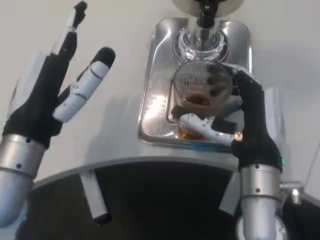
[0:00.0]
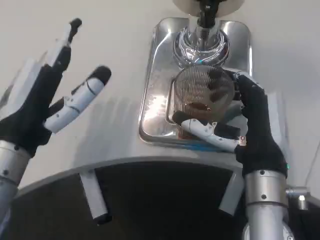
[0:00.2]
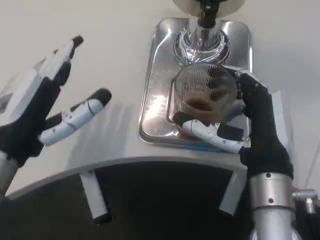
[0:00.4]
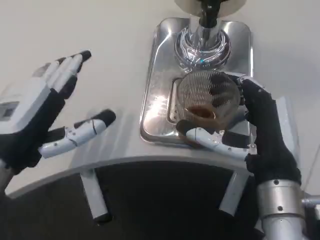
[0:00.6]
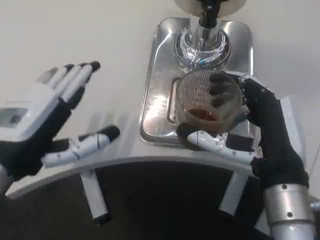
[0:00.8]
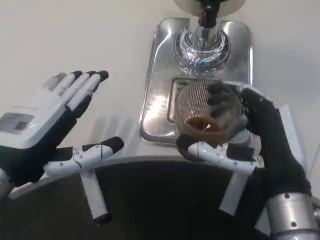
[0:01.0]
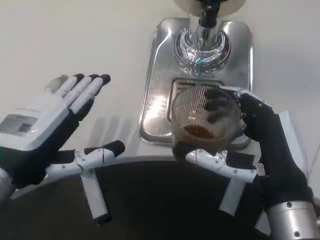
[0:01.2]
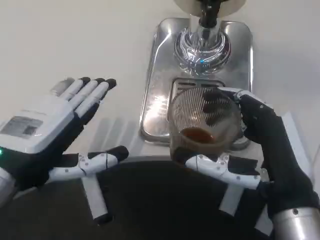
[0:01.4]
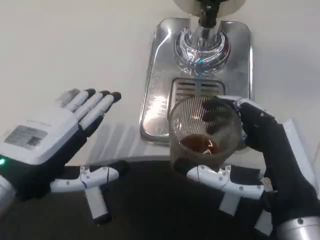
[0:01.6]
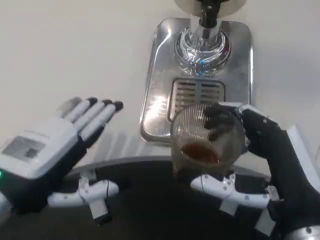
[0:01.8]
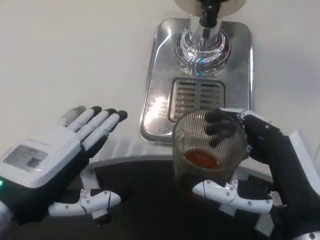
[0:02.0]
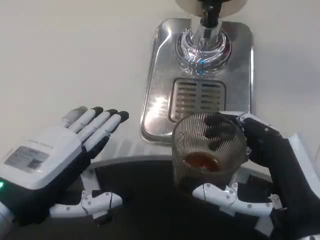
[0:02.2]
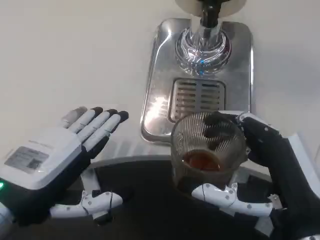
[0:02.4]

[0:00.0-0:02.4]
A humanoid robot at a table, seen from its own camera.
Task of the whole recording: Grasp the cup under the faucet to collect the drink, then remove the cup.
0.0 to 1.2 s: The right hand heads backward, covering roughly 5 cm.

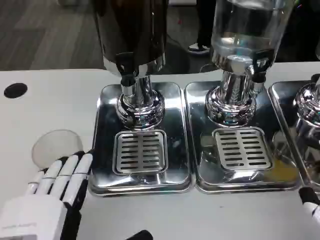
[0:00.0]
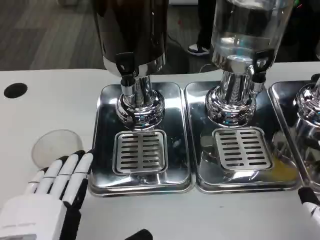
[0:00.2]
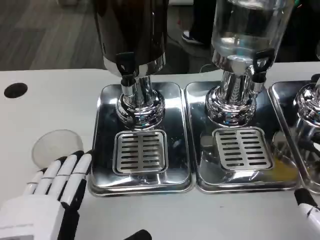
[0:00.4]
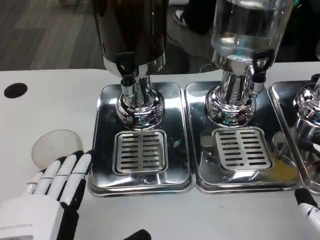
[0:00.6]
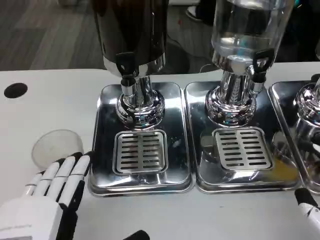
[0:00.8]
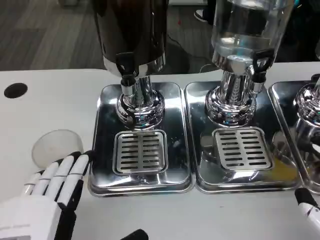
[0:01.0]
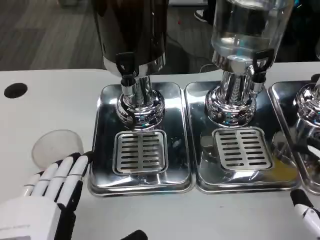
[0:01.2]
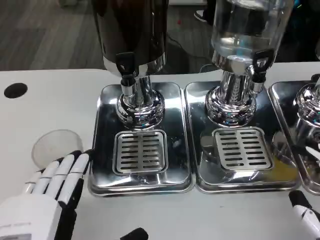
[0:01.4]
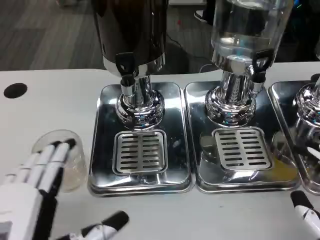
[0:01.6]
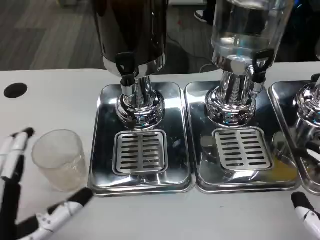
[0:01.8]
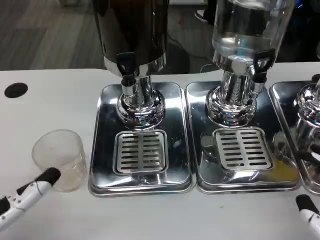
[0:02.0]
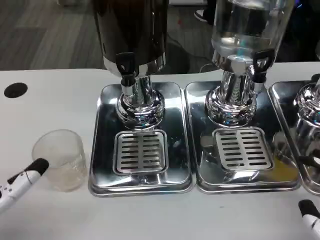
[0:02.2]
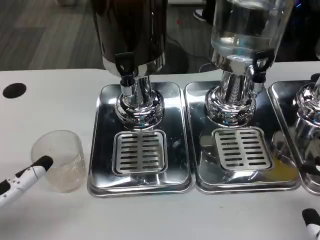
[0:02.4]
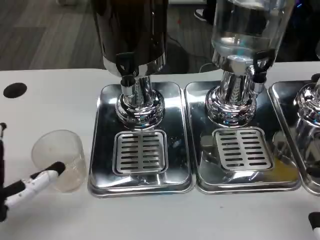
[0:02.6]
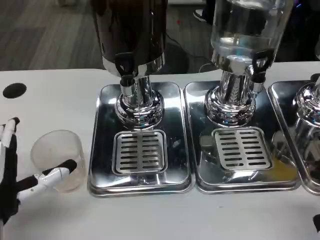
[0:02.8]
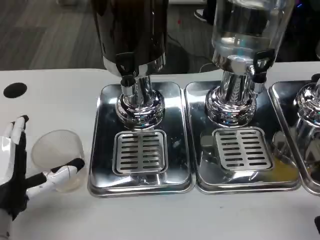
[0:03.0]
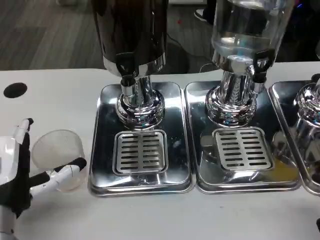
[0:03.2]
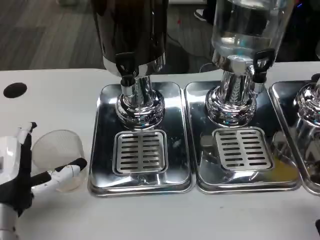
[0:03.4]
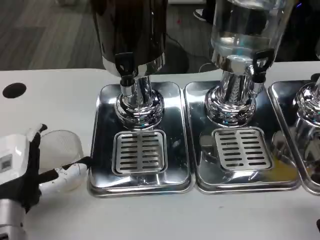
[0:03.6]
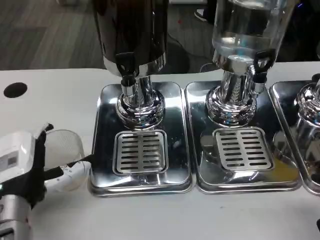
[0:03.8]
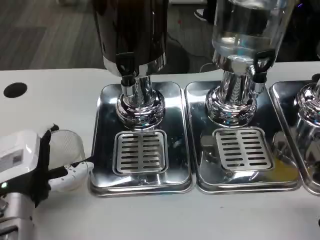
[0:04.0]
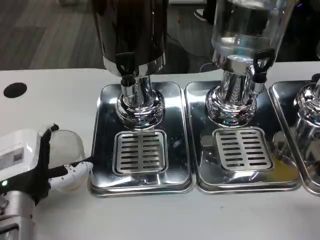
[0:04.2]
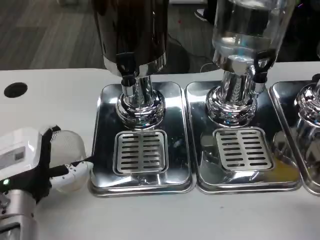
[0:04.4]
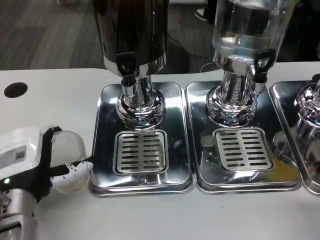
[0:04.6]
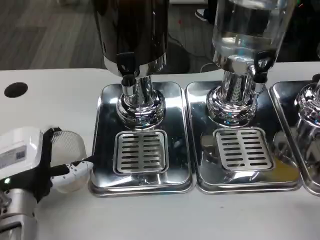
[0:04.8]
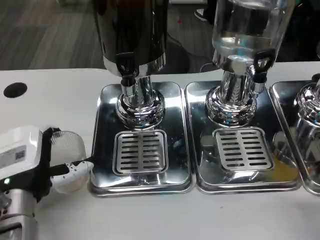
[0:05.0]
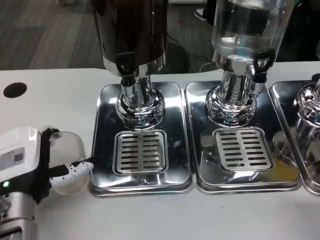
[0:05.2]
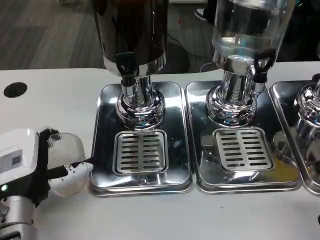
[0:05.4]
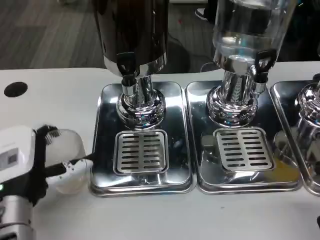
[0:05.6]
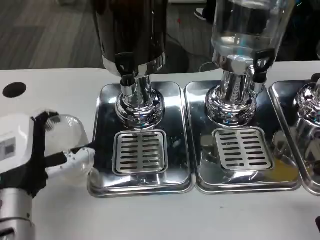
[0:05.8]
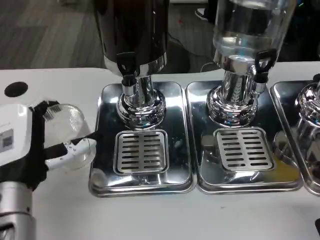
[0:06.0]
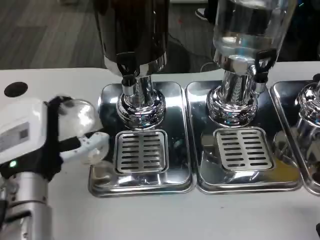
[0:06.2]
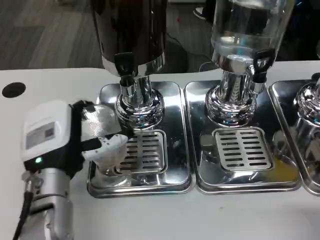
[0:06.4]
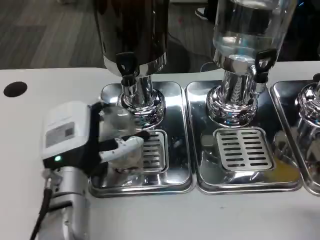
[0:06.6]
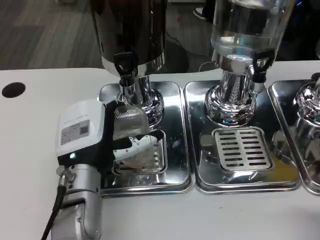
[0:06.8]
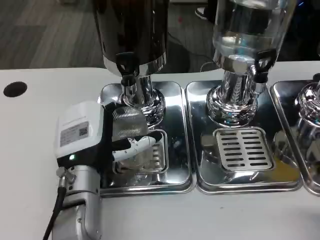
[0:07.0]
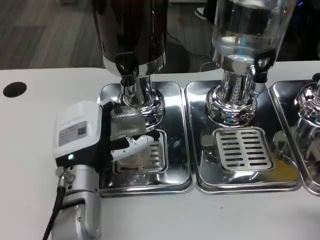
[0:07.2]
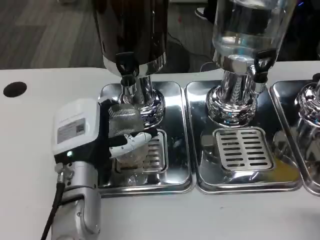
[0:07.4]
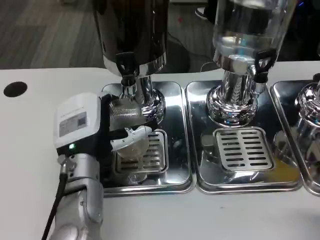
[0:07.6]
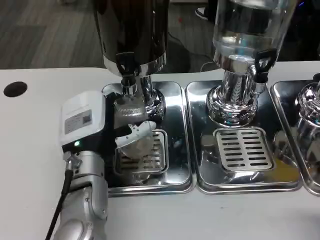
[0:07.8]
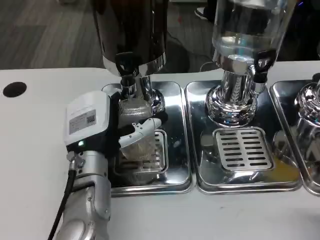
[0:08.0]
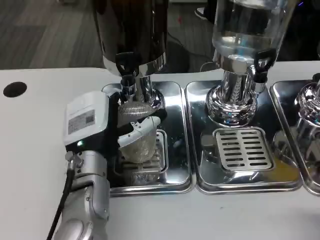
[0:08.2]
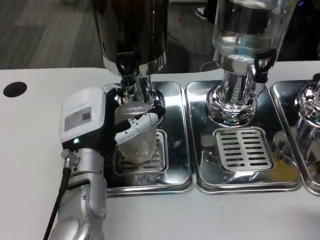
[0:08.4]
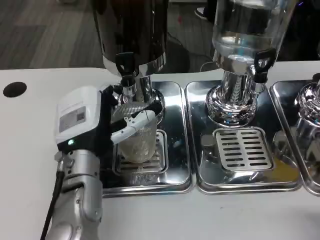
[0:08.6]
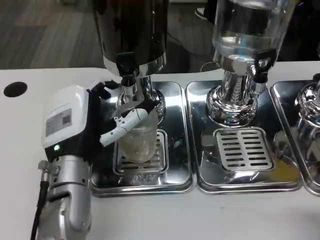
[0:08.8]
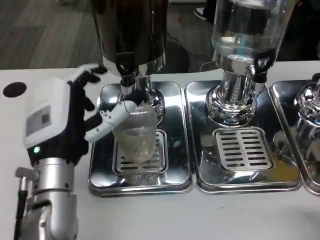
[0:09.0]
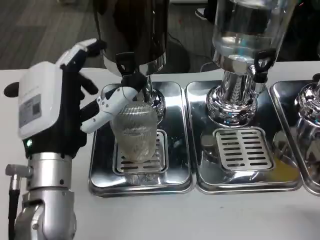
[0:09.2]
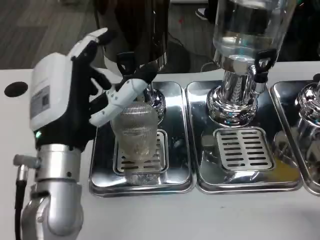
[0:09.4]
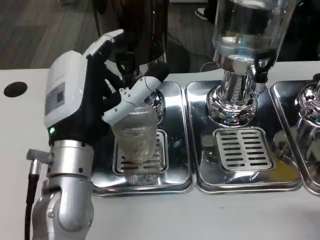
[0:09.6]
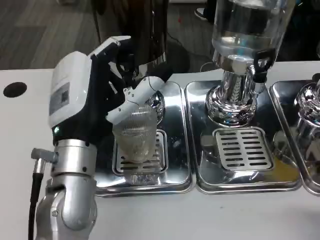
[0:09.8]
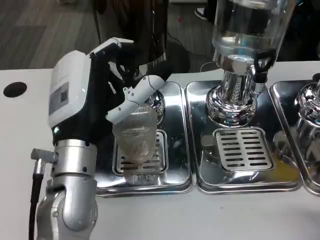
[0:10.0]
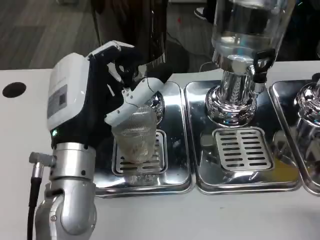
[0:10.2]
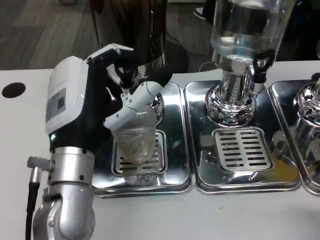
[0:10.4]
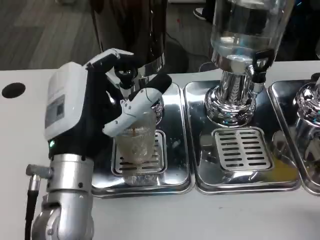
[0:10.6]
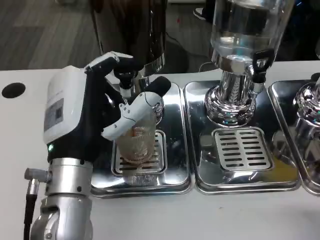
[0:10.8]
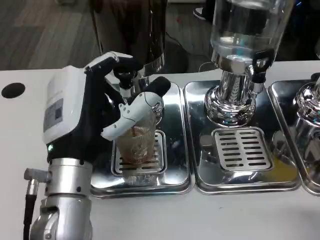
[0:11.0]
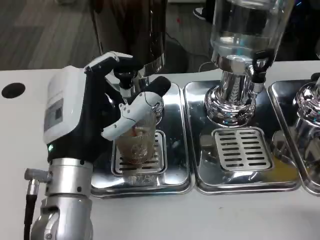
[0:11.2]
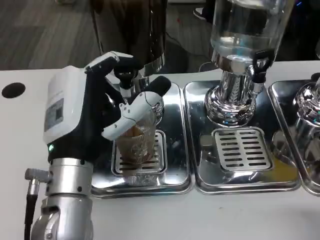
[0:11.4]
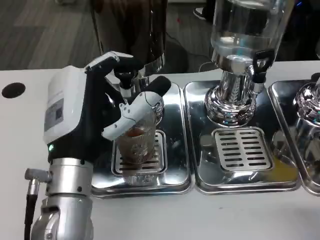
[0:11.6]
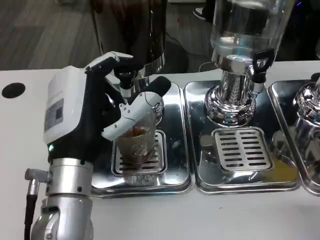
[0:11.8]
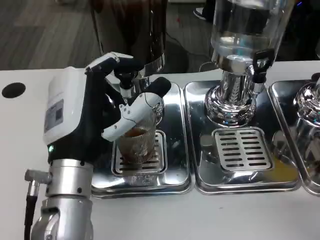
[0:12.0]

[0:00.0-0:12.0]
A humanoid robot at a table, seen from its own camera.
Task of the whole recording: Grasp the cup under the faucet to collect the drink, then remove the cup.
0.0 to 1.6 s: There are only small adjustments of the hands.
1.6 to 3.0 s: The left hand moves forward, about 10 cm.
3.0 to 6.0 s: The hands move only a little.
6.0 to 7.6 s: The left hand moves to the right and forward, approximately 10 cm.
7.6 to 9.0 s: The left hand shifts by about 5 cm.
10.4 to 12.0 s: The hands stay close to where they were, moving slightly.

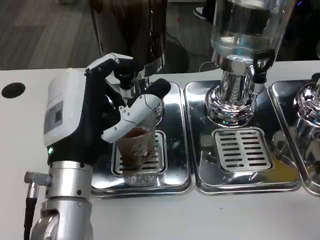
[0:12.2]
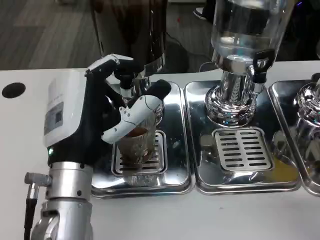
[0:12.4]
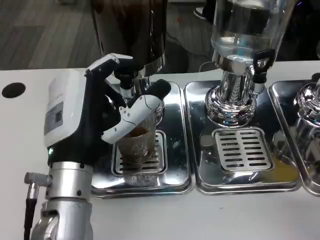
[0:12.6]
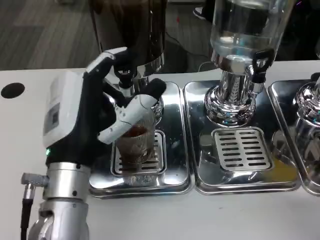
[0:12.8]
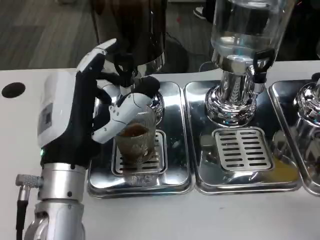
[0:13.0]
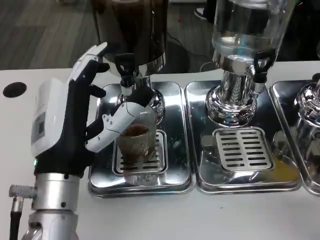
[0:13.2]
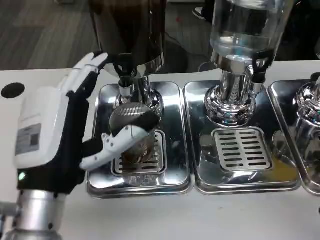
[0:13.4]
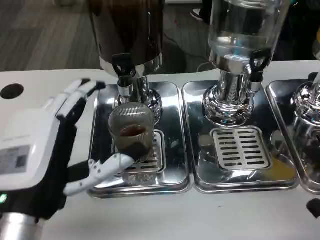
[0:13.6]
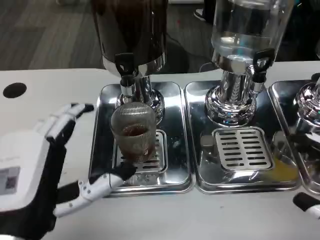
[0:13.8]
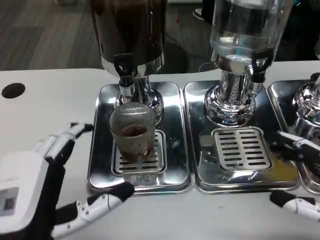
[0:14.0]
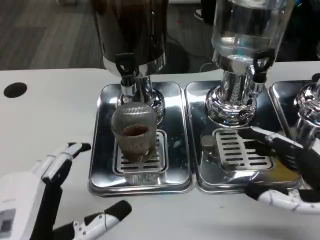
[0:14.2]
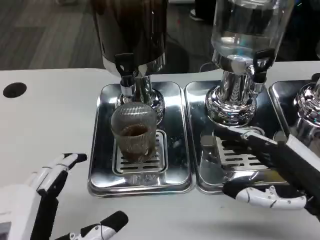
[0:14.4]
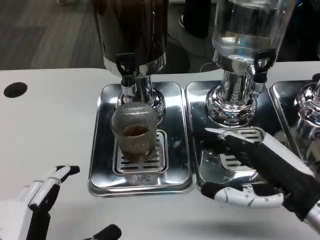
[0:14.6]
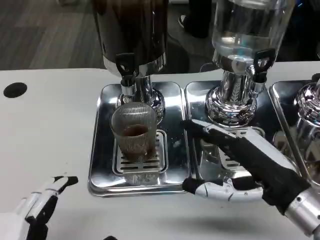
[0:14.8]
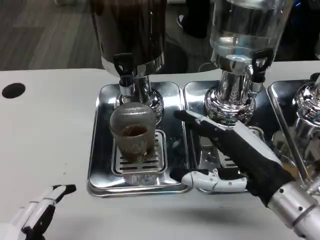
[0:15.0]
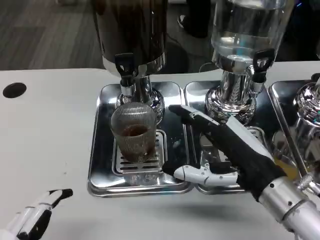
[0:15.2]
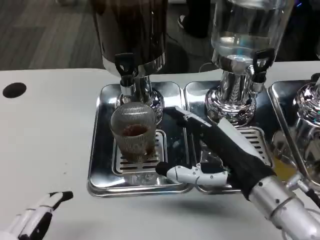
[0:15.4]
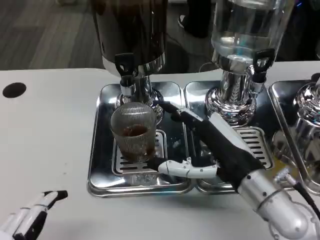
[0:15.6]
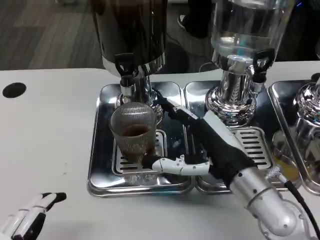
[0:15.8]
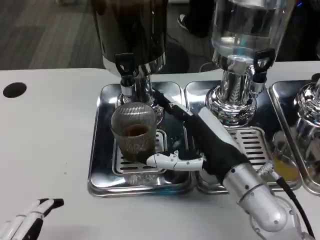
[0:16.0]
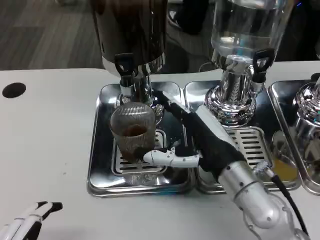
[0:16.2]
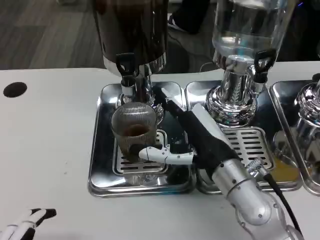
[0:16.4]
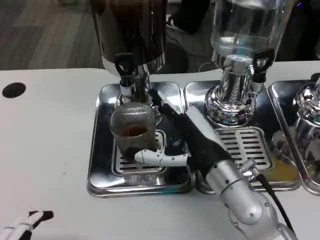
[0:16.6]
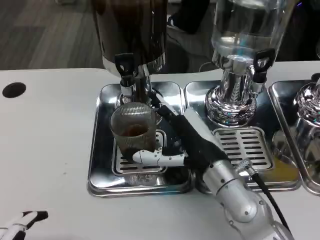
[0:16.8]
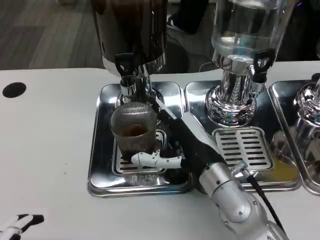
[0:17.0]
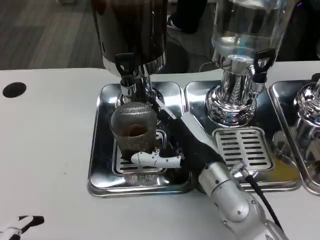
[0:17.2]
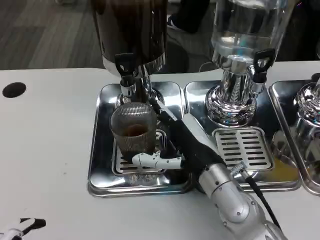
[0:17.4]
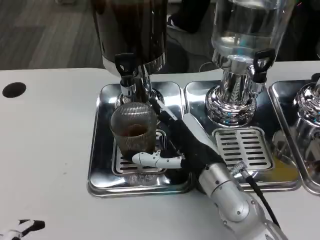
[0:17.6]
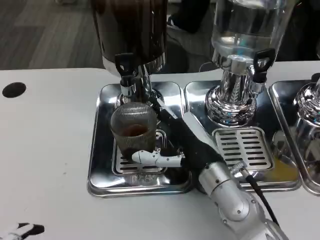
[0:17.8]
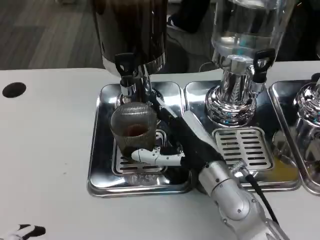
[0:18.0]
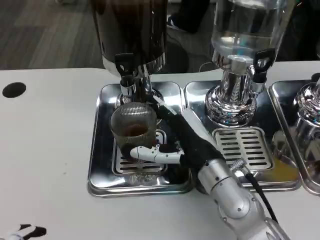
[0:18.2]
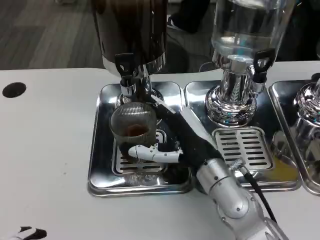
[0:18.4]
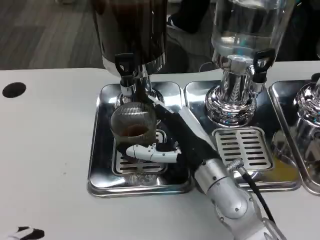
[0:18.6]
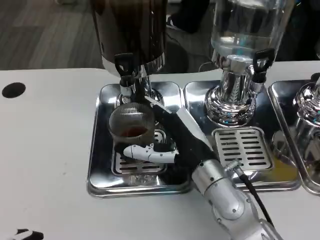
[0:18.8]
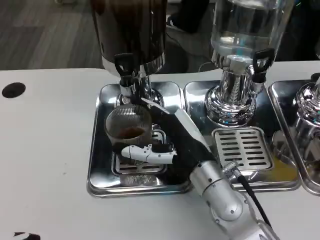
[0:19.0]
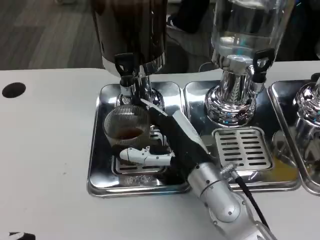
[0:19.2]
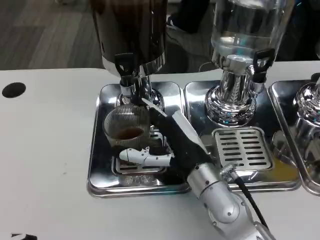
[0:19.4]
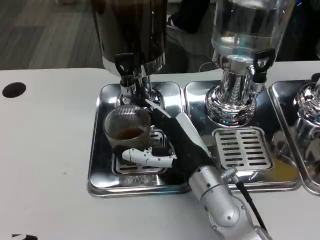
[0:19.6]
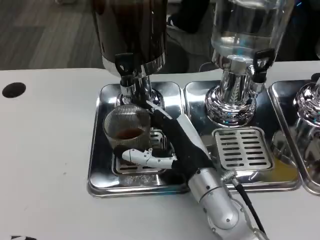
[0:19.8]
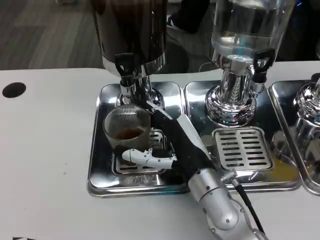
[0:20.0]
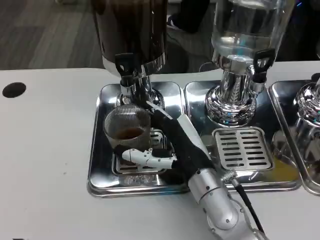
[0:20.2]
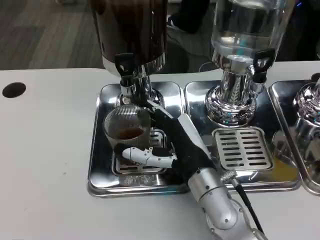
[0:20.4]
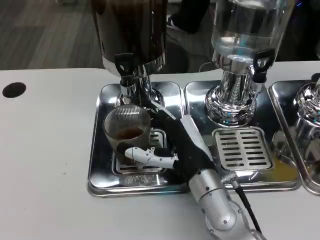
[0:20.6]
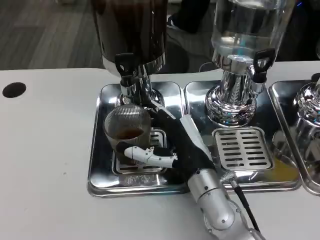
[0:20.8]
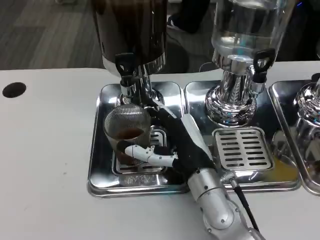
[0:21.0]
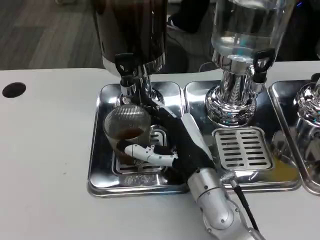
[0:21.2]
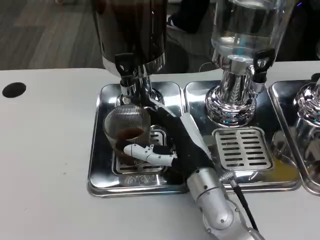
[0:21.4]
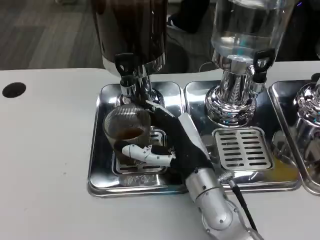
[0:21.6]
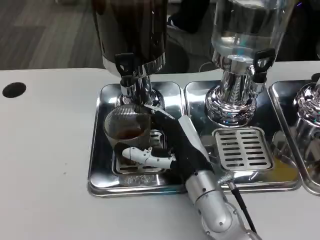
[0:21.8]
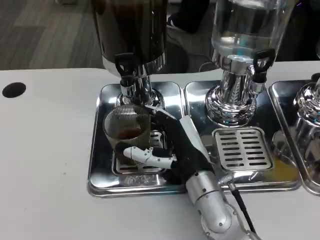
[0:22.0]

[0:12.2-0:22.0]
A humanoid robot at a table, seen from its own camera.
Task of the whole recording: Grasp the cup under the faucet to collect the drink, then remove the cup.
12.2 to 13.6 s: The left hand goes approximately 5 cm backward.
13.6 to 15.0 s: The left hand shifts about 10 cm backward. Meanwhile the right hand heads to the left and forward, covering approximately 15 cm.
15.0 to 16.4 s: The right hand shifts approximately 5 cm to the left.
16.4 to 20.6 s: The hands stay close to where they were, moving slightly.
20.6 to 22.0 s: Both hands stay put.
